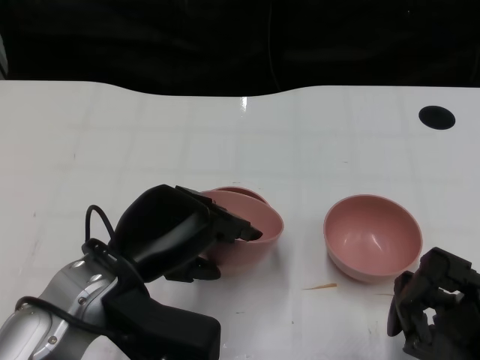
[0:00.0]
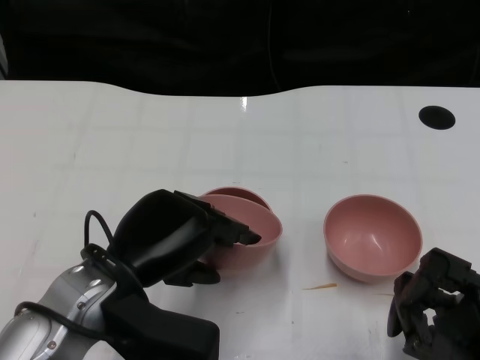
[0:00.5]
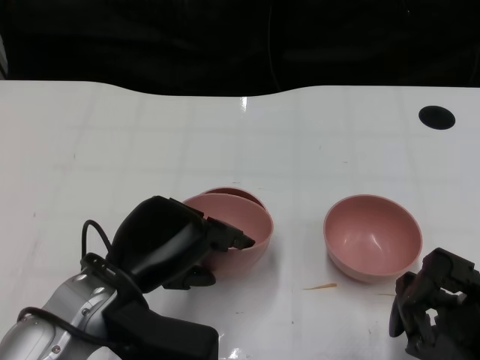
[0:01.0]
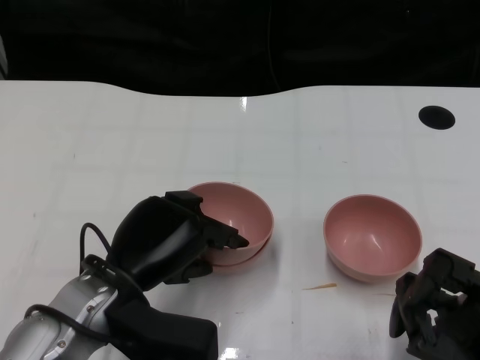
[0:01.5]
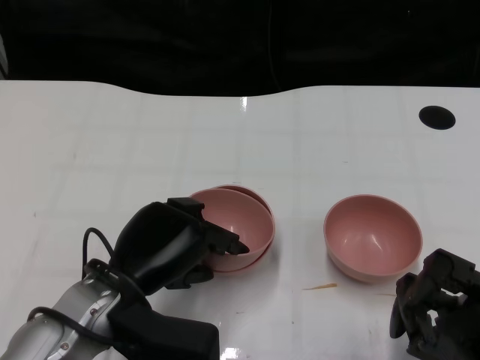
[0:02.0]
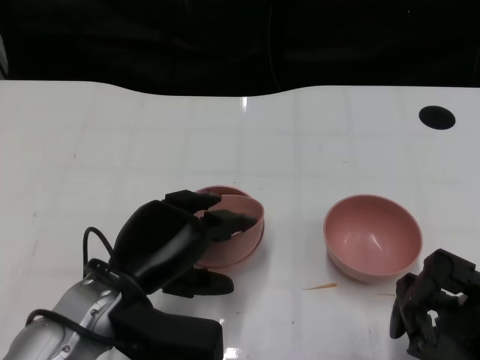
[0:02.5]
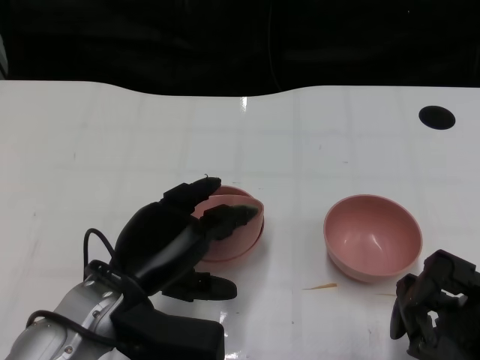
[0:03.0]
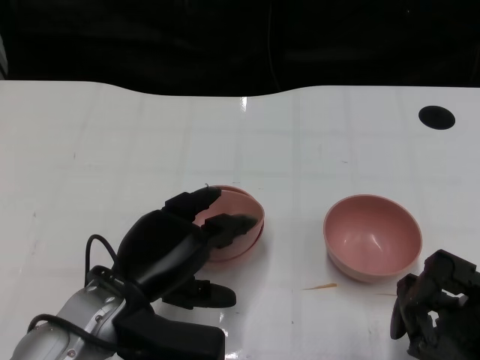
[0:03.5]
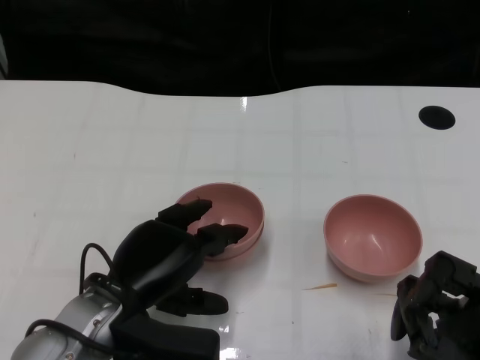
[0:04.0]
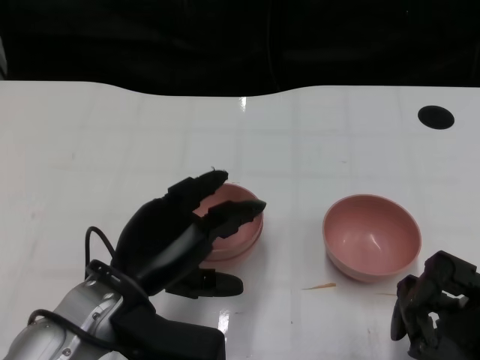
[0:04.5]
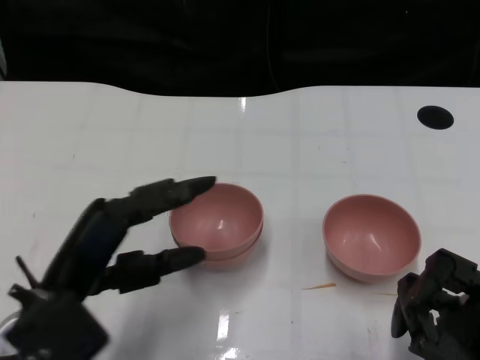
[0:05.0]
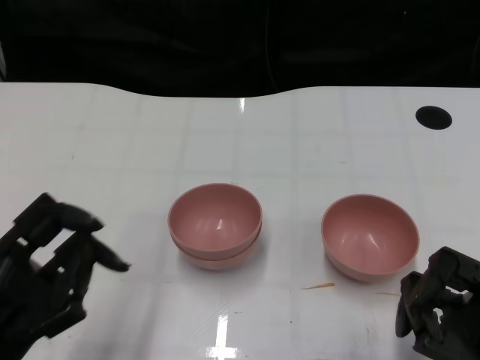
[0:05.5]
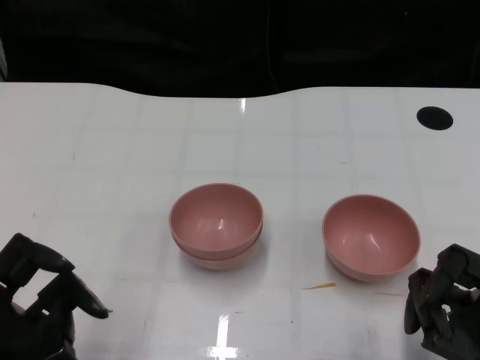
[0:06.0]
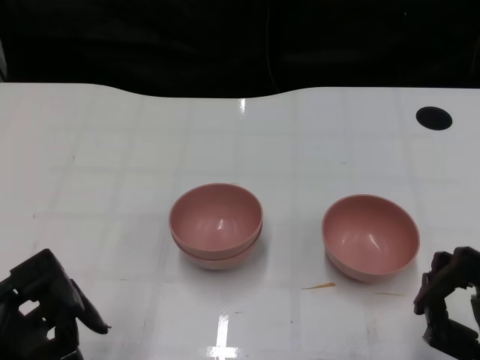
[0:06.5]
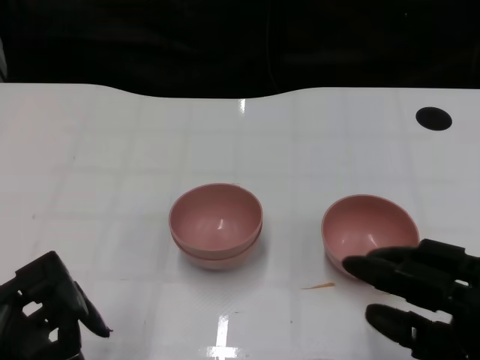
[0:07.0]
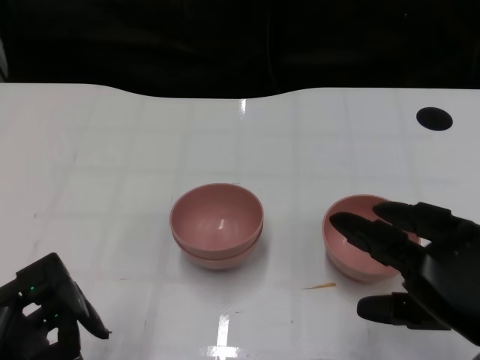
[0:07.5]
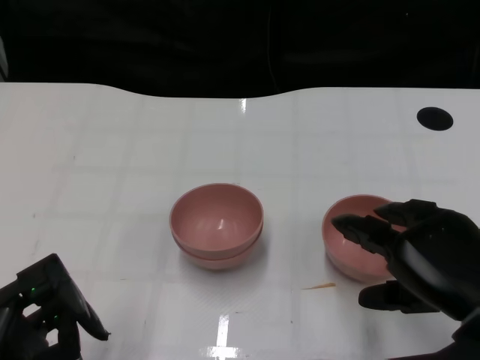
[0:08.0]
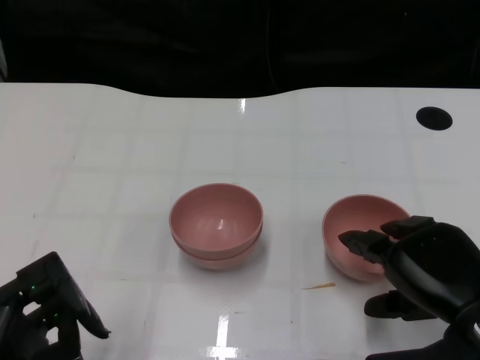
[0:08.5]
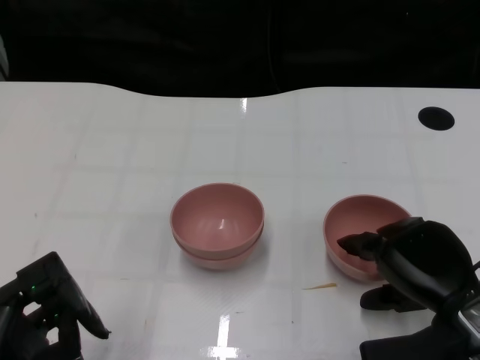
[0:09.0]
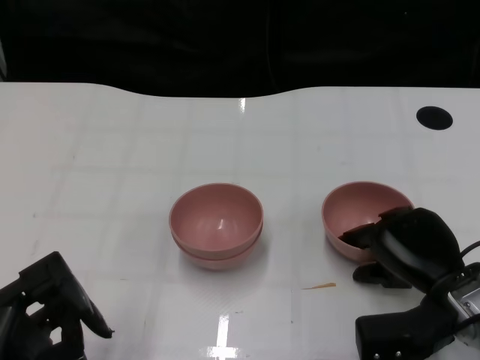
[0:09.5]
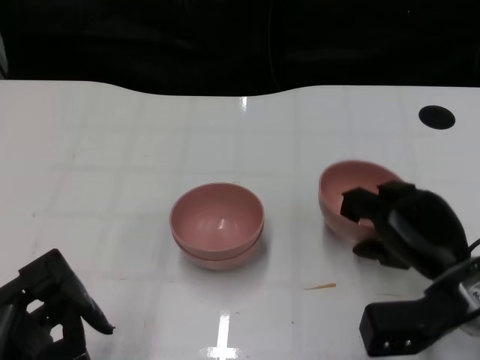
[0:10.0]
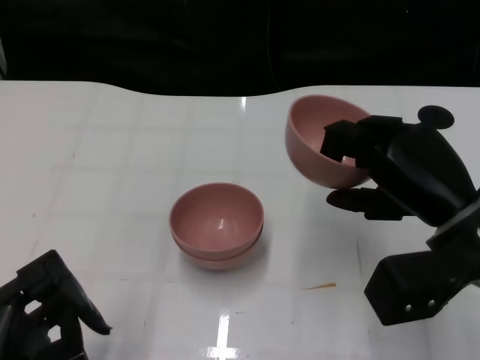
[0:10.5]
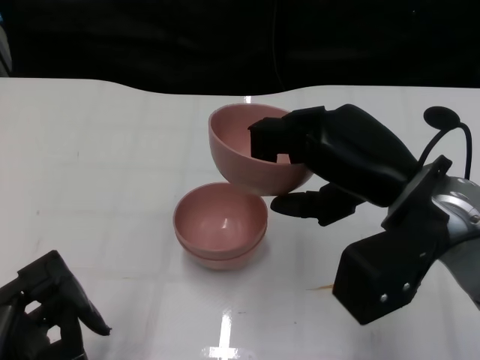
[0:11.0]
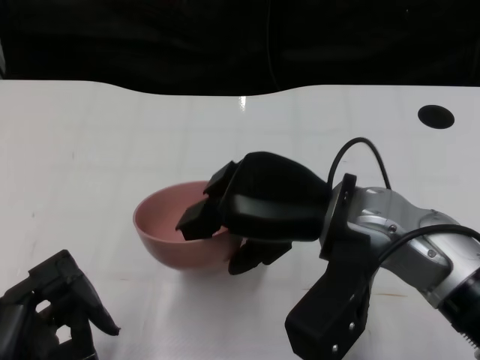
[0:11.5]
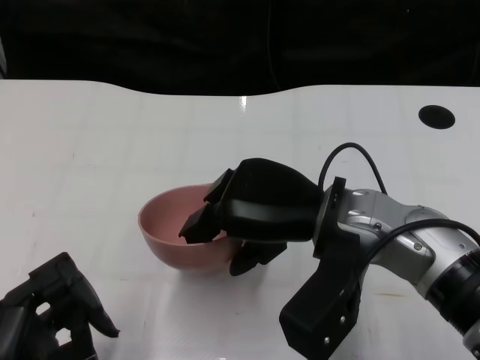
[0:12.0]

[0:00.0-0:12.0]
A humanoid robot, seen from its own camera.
Task of the whole recording: Pick up the bowl on one side of the table and place it on top of the middle bowl, then pick up the bowl on the other side of the table and place it on top of the middle bowls.
Step, 0:00.0 to 0:04.5: Place the bowl on the left onto the bowl in the middle with left gripper.
Step, 0:05.0 to 0:10.0: Grasp the bowl on the right with the right gripper.
0:00.0 to 0:04.0: The hands stay close to where they were, moving slightly.
0:04.0 to 0:06.0: The left hand travels backward and to the left by roughly 15 cm.
0:06.0 to 0:08.0: The right hand travels upward by about 5 cm.
0:08.0 to 0:10.0: The right hand goes approximately 10 cm downward and forward.
0:10.0 to 0:12.0: The right hand goes some 15 cm to the left and upward.

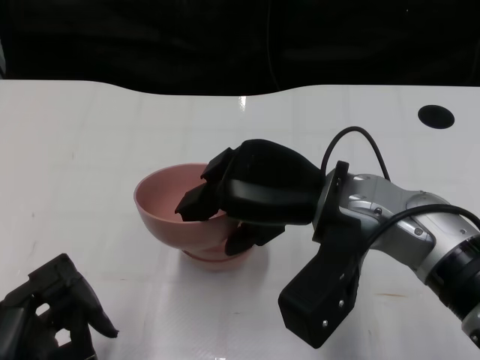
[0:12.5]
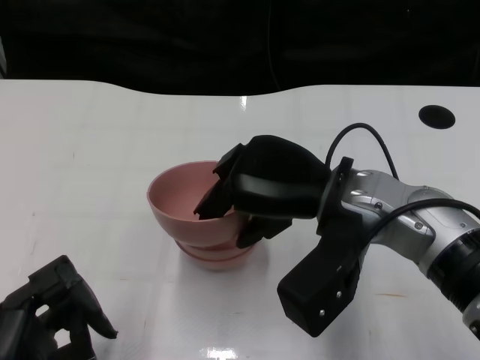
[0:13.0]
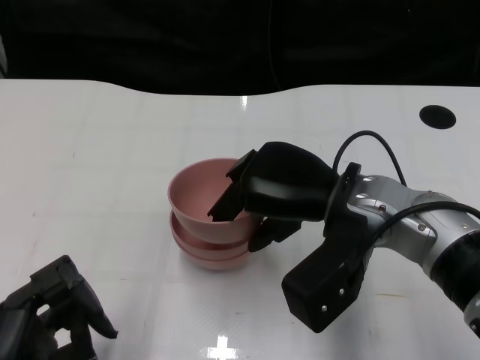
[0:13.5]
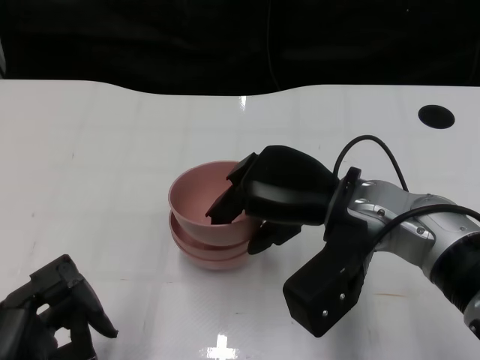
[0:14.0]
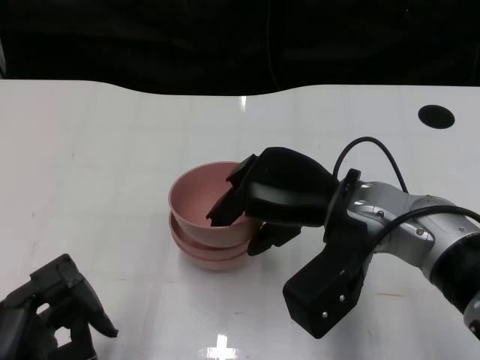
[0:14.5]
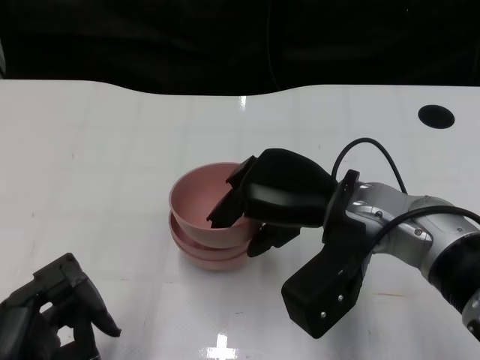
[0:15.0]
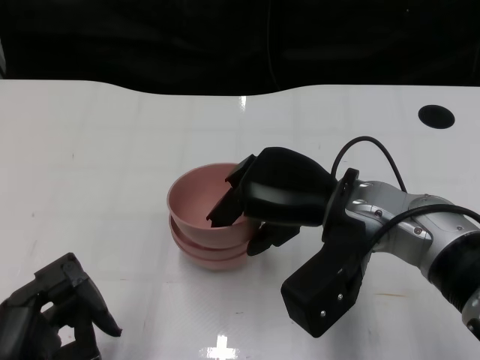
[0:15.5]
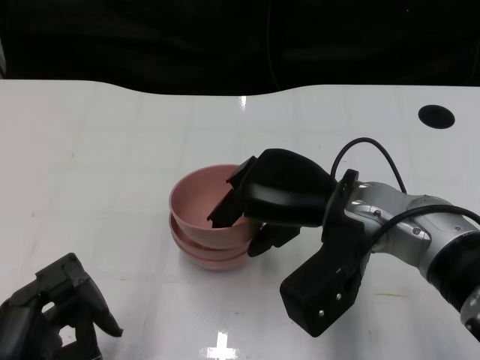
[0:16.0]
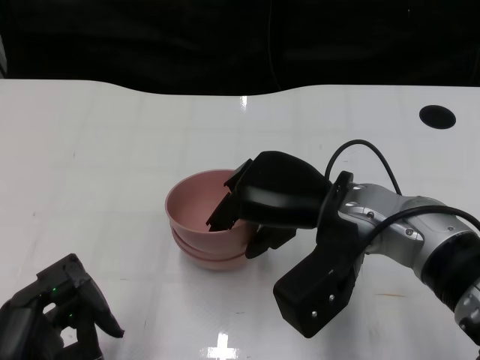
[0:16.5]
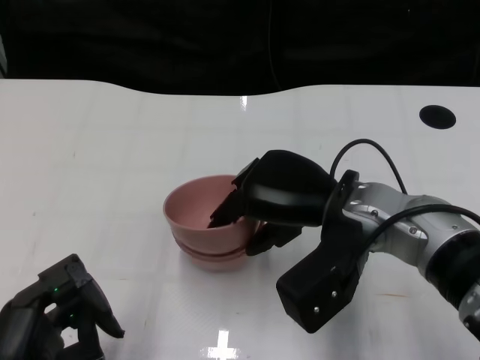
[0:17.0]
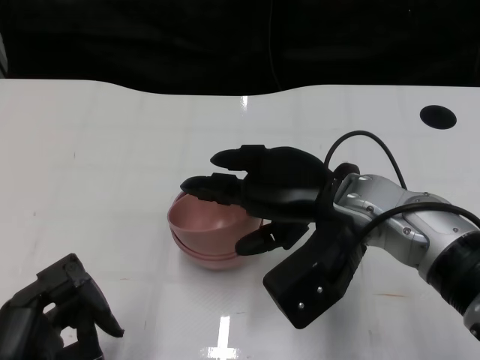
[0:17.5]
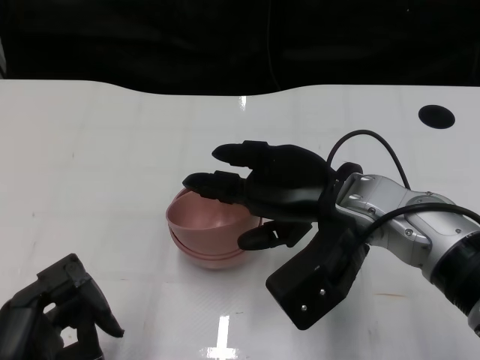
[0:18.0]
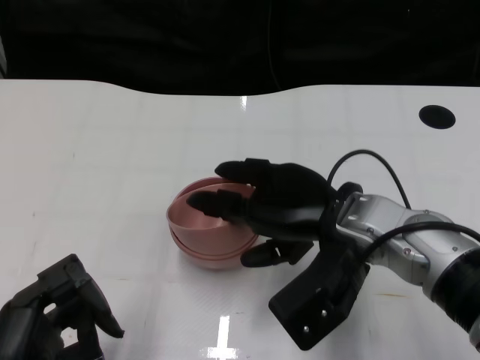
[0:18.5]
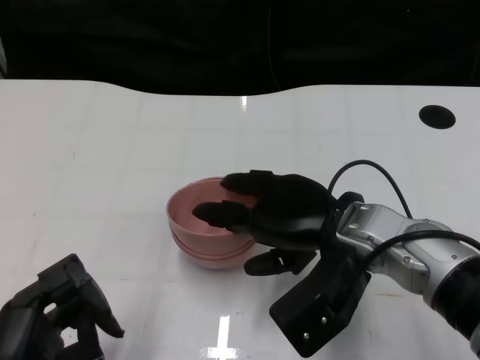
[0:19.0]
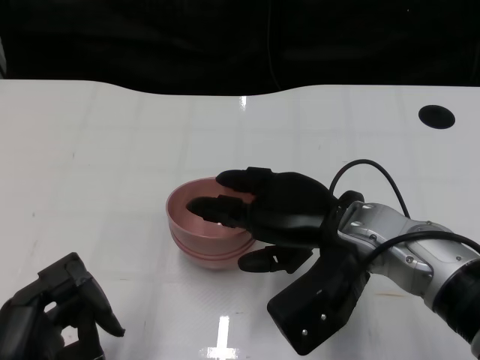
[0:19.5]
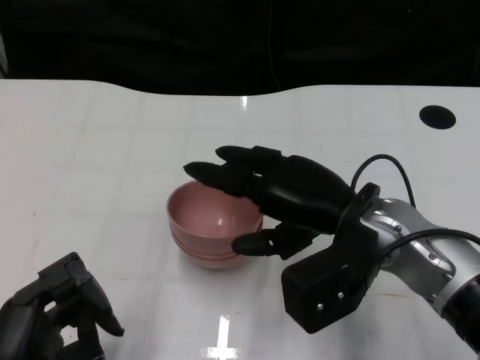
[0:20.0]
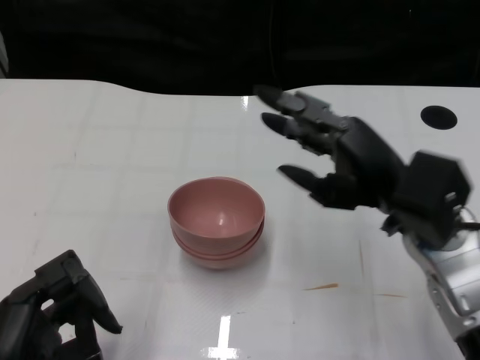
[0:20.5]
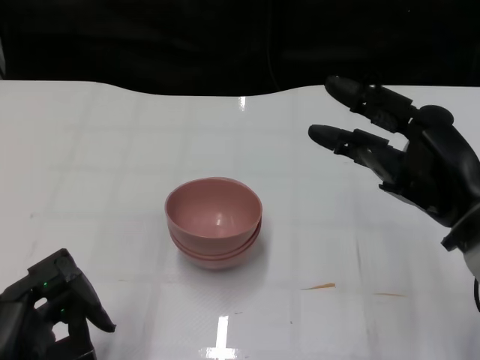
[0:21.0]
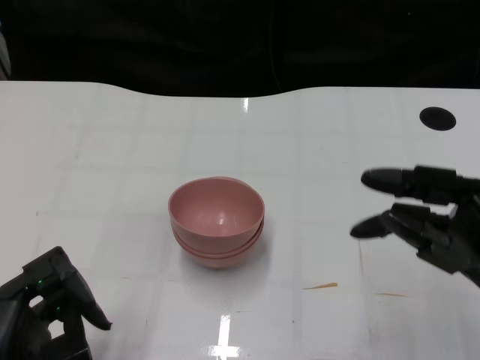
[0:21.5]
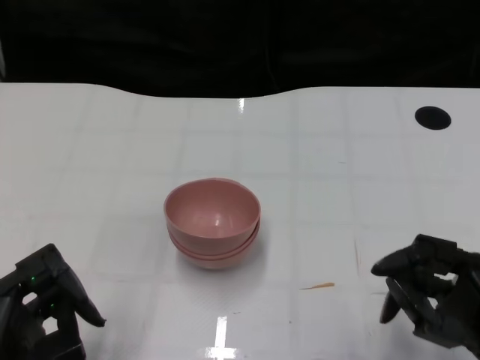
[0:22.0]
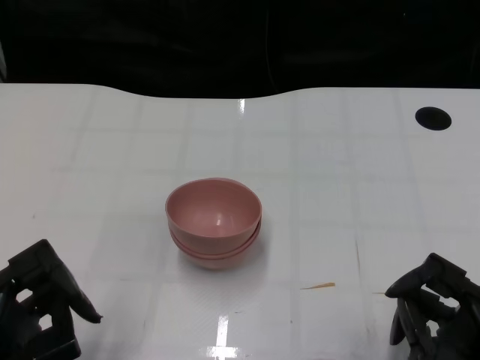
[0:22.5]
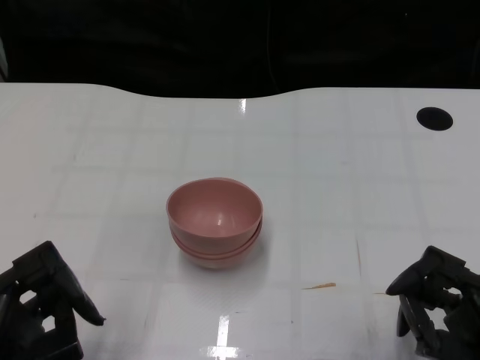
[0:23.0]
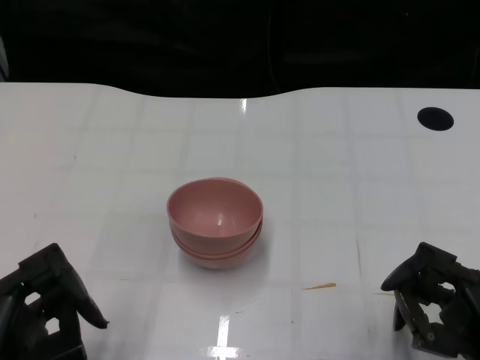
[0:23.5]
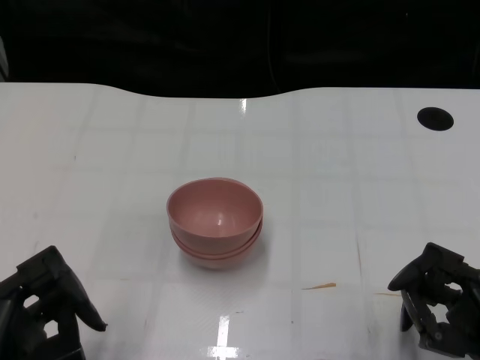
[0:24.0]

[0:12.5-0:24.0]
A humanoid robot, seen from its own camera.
Task of the whole recording: Pick up the bowl on one side of the table and place it on top of the middle bowl, then pick up the bowl on the other side of the table and place it on top of the middle bowls.
Step, 0:12.5 to 0:20.0: Place the bowl on the right onto the bowl in the middle with right gripper.
0:12.5 to 0:14.5: The hands stay close to where they were, moving slightly.
0:14.5 to 0:16.5: Both hands stay about where they are.
0:16.5 to 0:18.5: There are only small adjustments of the hands.
0:20.0 to 0:22.0: The right hand is displaced to the right, backward and downward by approximately 20 cm.
0:22.0 to 0:24.0: There are only small adjustments of the hands.

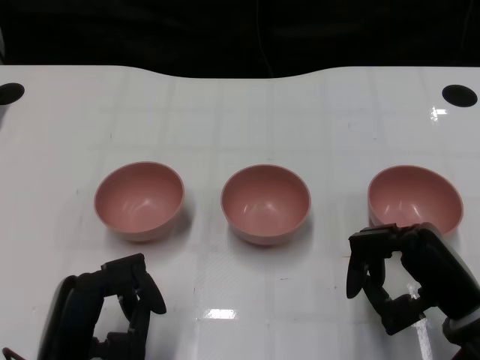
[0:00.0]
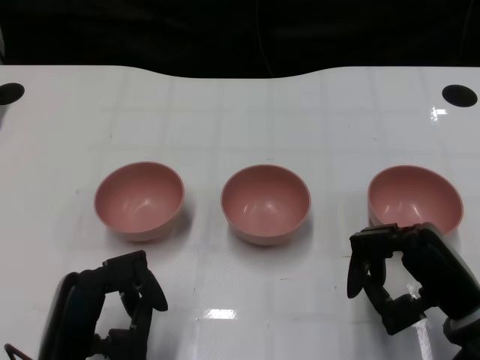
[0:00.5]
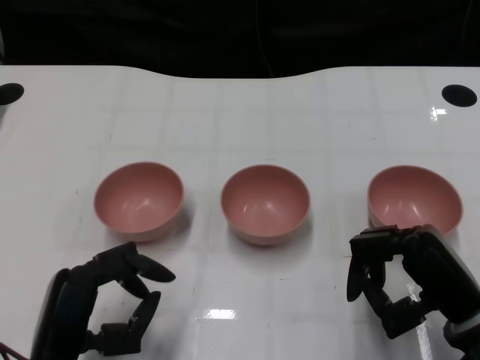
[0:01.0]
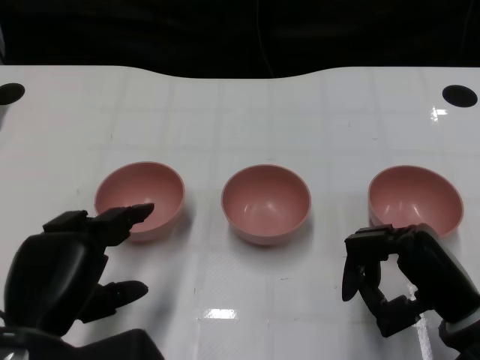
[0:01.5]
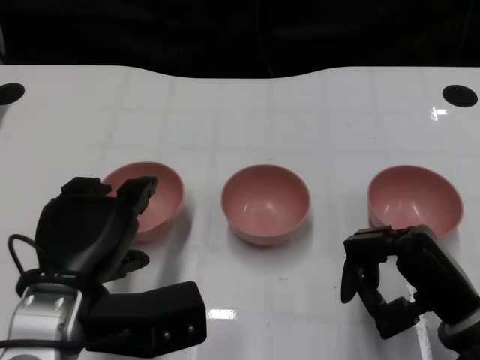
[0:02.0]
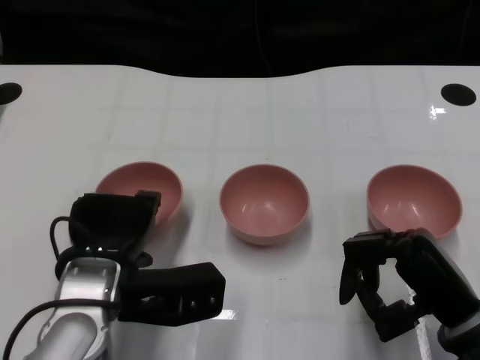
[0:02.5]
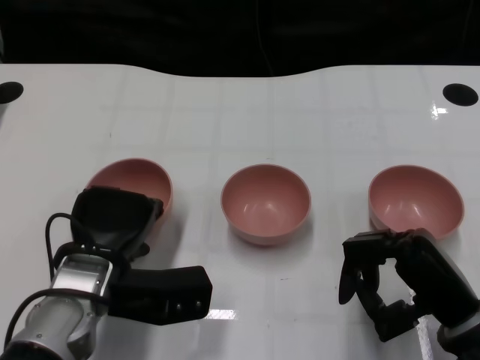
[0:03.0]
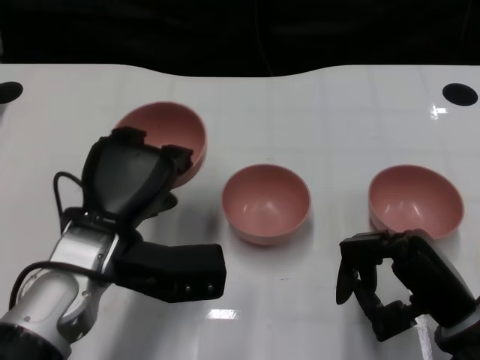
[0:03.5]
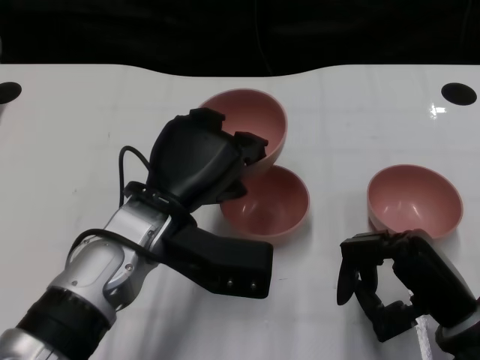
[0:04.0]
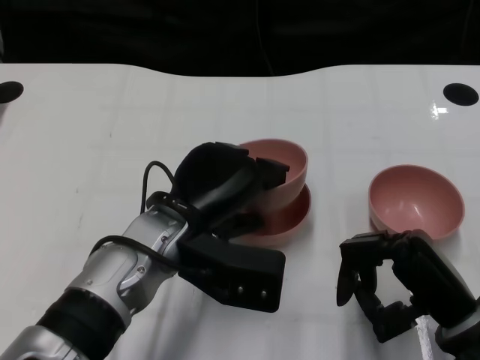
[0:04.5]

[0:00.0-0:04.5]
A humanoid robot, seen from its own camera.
Task of the whole recording: Pick up the bowl on one side of the table and place it on top of the middle bowl, then pick up the bowl on the other side of the table and place it on top of the middle bowls.
Step, 0:01.0 to 0:03.0: Grasp the bowl on the left with the left gripper.
0:02.0 to 0:04.5: The left hand is displaced to the right and forward by approximately 10 cm.
